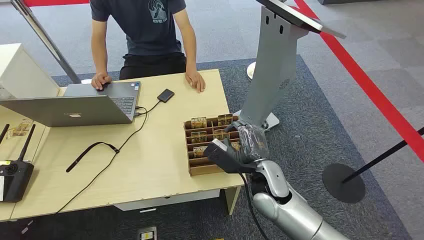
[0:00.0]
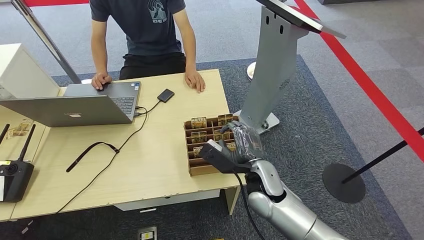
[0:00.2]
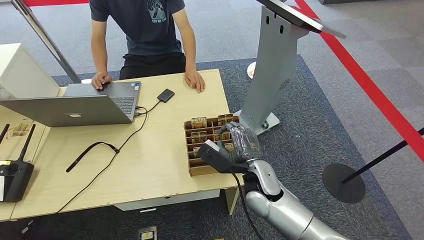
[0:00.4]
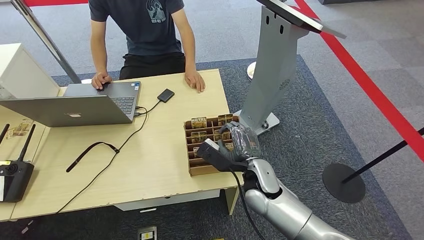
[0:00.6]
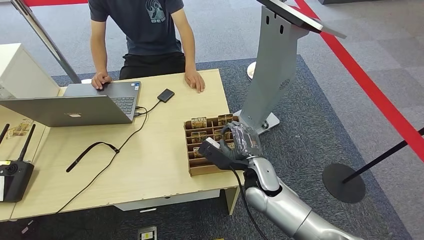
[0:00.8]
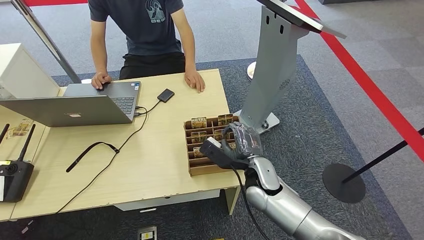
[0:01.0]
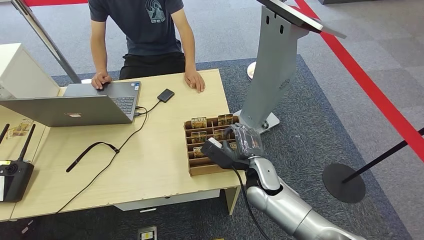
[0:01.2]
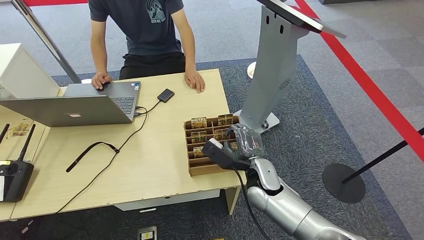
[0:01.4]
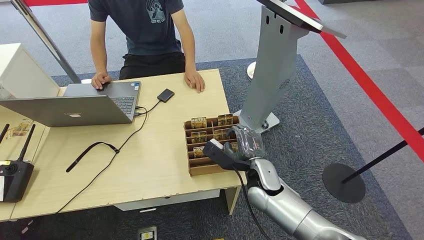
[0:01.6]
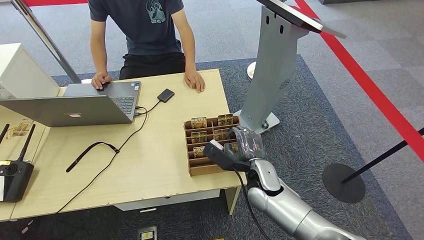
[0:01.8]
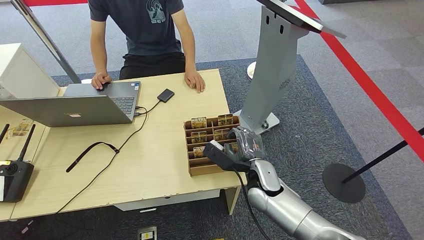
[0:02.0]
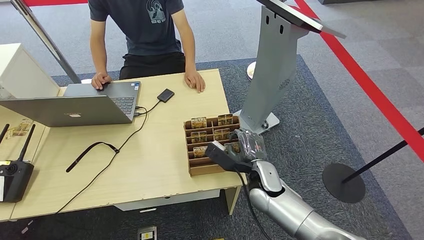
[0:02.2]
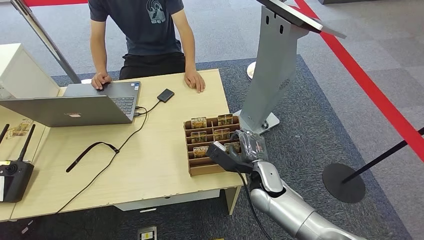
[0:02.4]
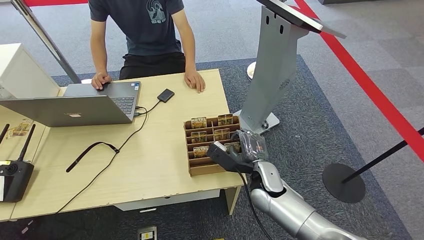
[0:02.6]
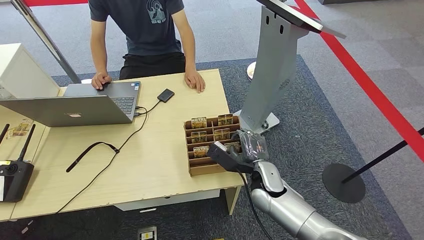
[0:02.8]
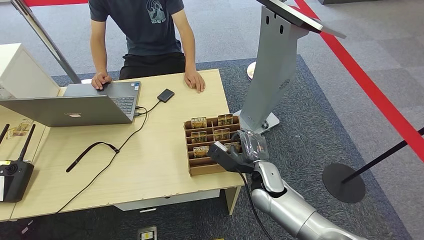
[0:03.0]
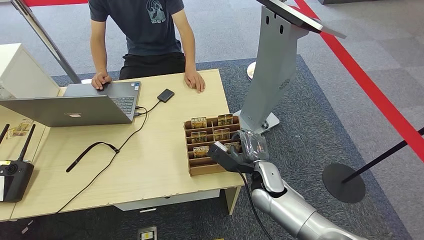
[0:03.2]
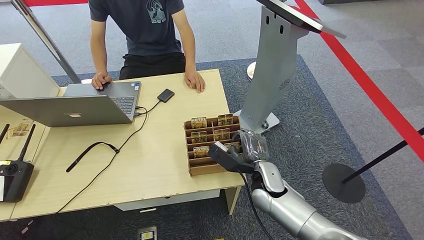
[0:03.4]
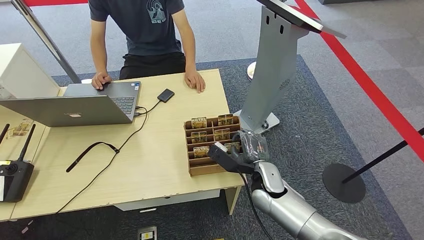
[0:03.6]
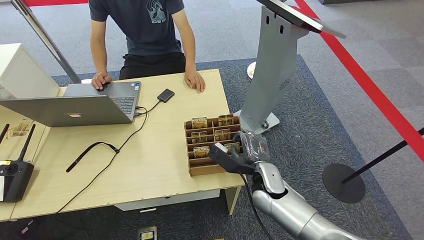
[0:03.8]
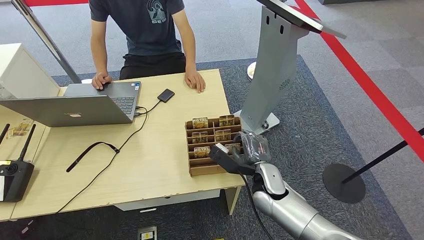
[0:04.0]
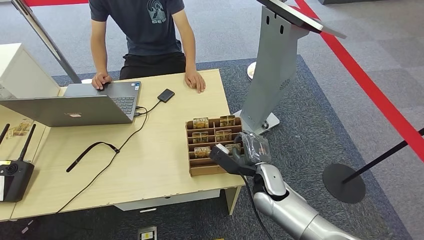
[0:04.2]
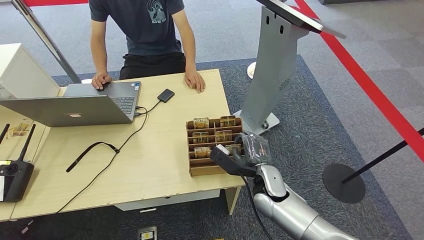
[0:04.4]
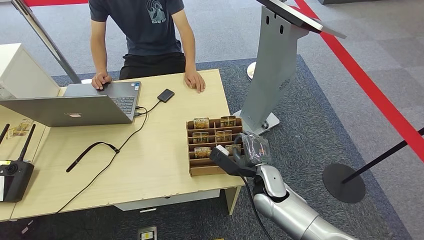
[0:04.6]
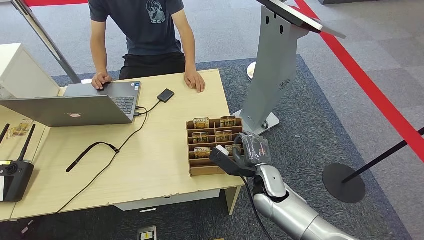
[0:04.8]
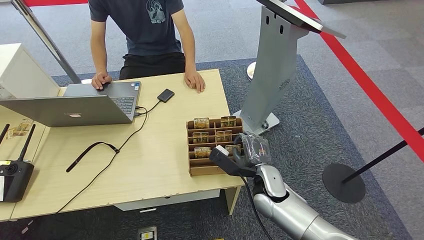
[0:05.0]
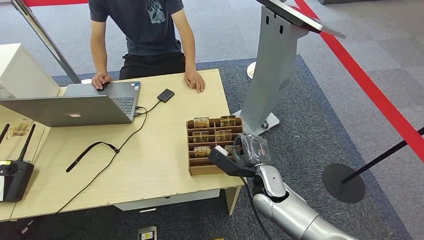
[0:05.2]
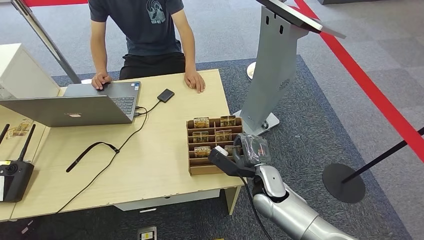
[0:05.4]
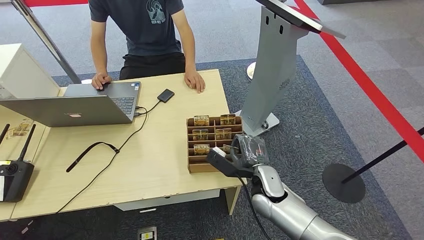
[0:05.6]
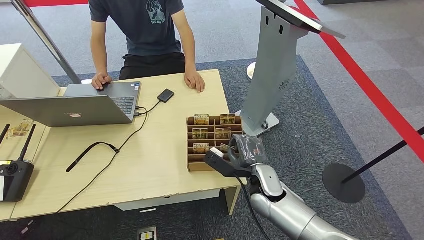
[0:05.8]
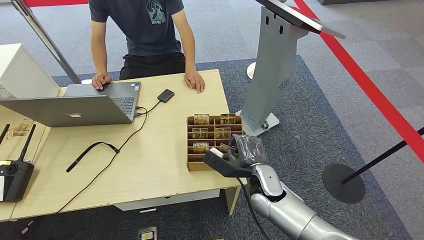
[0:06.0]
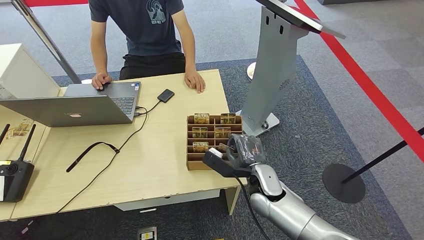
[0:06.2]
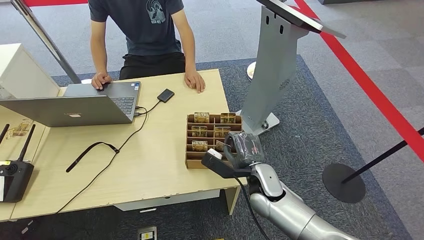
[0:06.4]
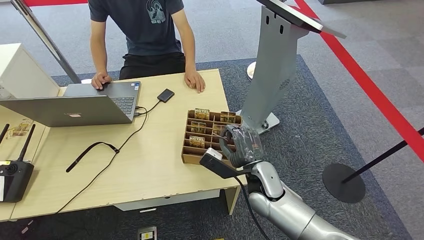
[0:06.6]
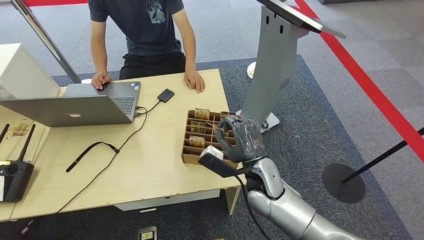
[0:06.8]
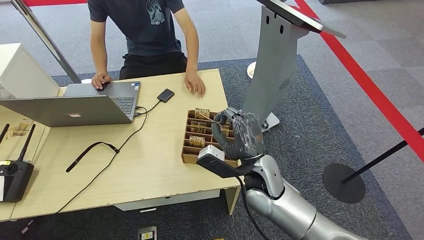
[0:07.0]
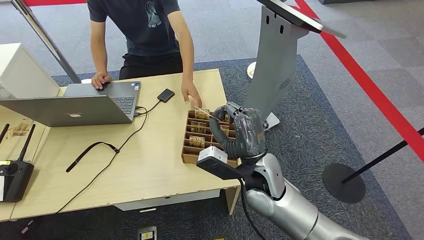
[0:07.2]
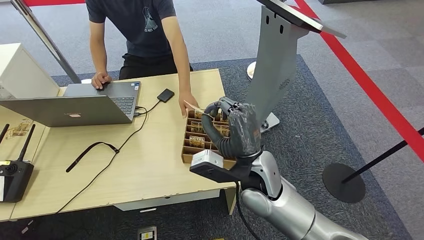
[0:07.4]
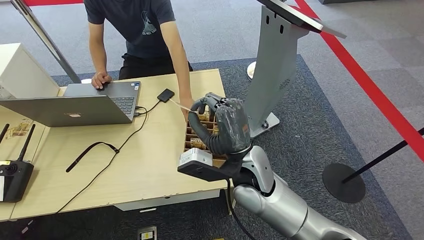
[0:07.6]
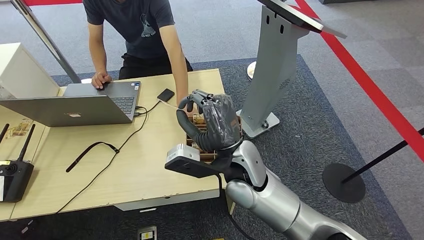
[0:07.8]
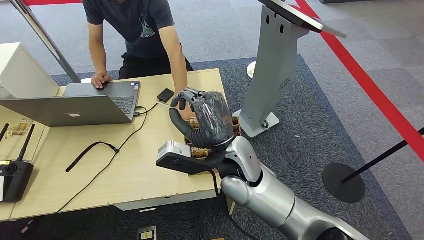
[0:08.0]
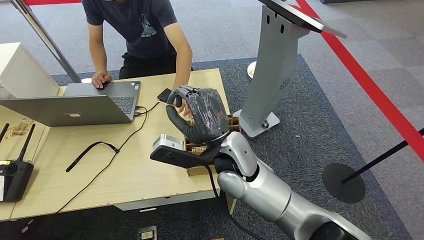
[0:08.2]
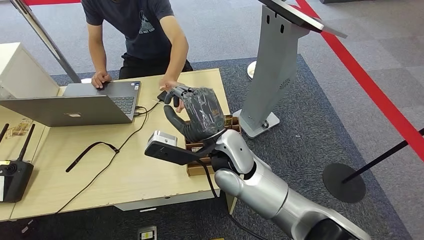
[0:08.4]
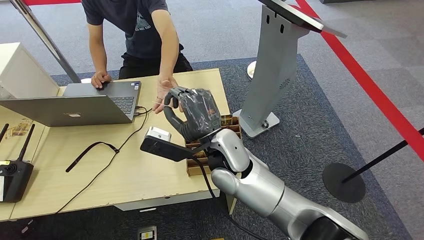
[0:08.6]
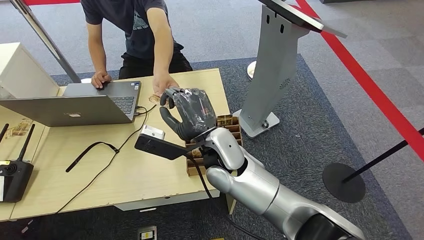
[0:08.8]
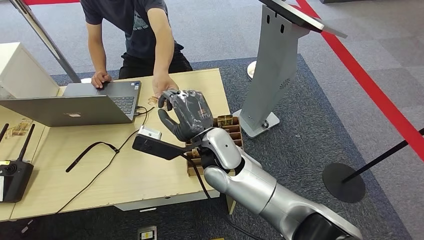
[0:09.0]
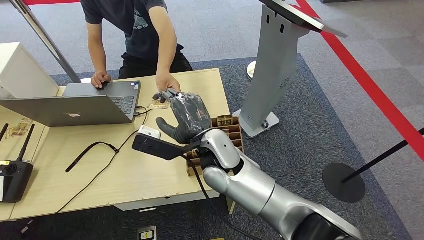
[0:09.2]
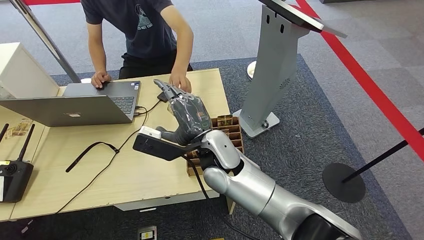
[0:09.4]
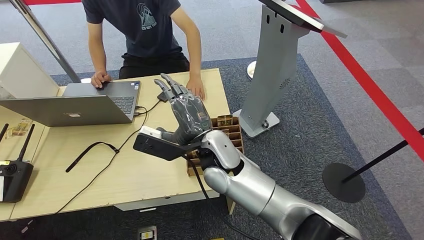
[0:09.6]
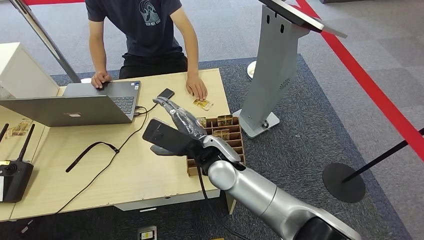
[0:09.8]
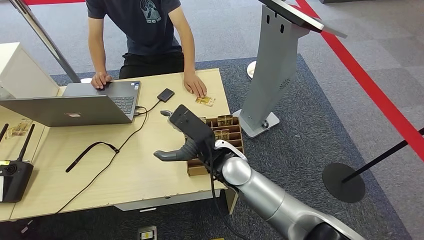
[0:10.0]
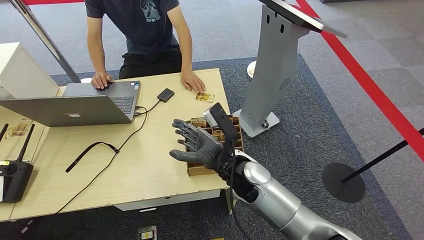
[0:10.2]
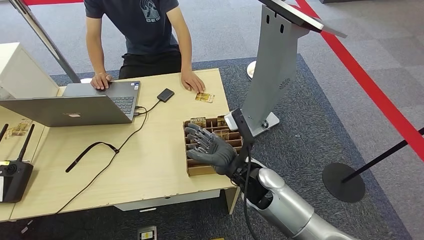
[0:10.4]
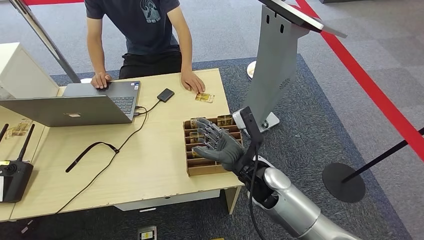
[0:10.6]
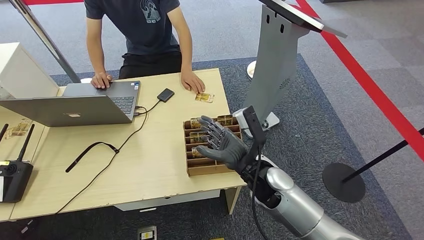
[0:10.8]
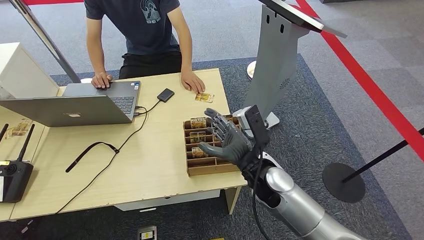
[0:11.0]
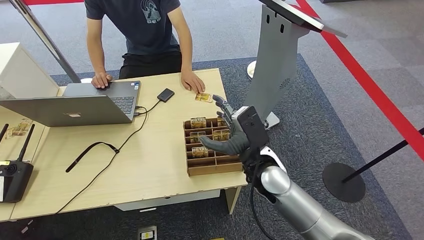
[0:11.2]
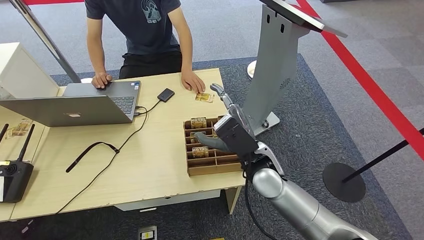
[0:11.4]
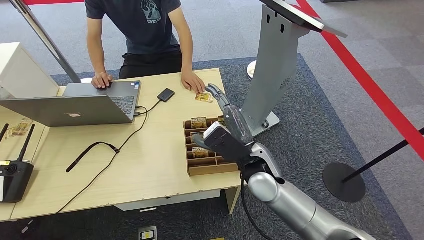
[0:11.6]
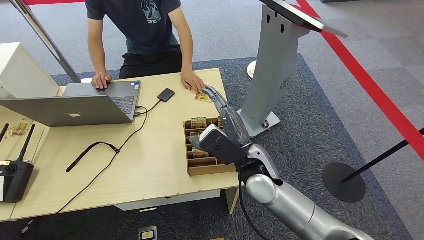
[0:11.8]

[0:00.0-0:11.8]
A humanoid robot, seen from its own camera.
Step, 0:00.0 to 0:06.6: Pick up the key card from the card box.
Step, 0:06.8 to 0:11.8: Hand the key card to the target.
0:01.4 to 0:03.0: The hands move only a little.
0:03.0 to 0:06.0: The two hands keep their place.
0:06.0 to 0:07.4: The right hand travels upward and to the left by approximately 15 cm.
0:07.4 to 0:08.8: The right hand moves to the left, some 10 cm.
0:08.8 to 0:10.4: The right hand heads to the right and downward, covering approximately 10 cm.
